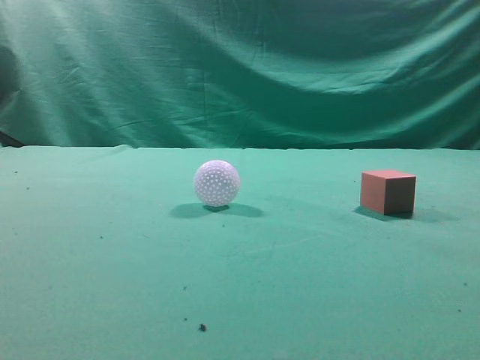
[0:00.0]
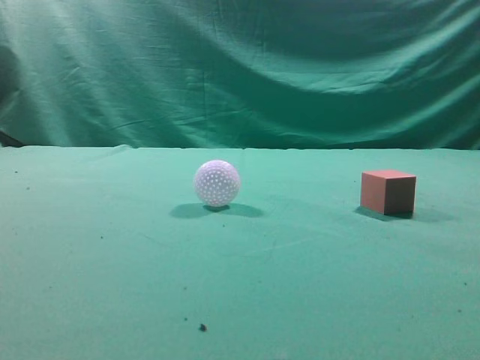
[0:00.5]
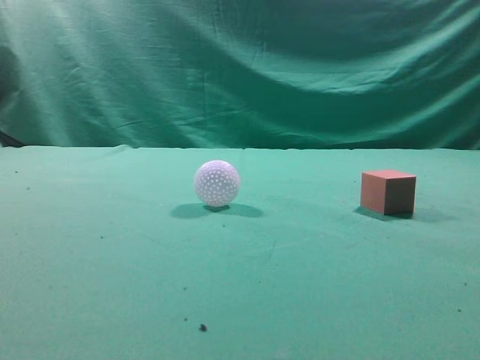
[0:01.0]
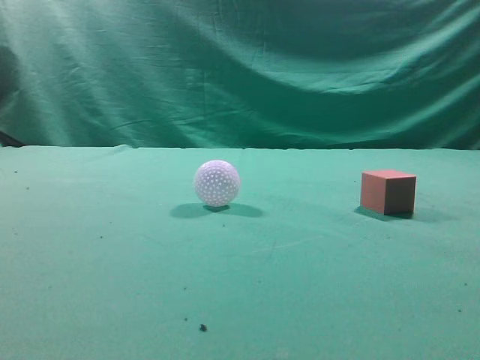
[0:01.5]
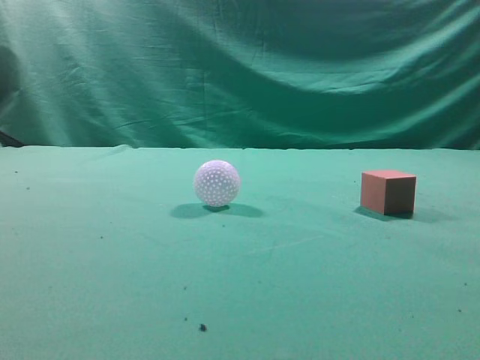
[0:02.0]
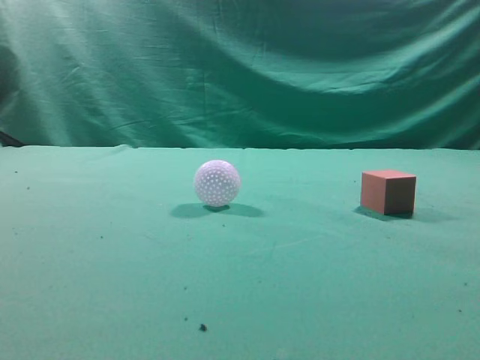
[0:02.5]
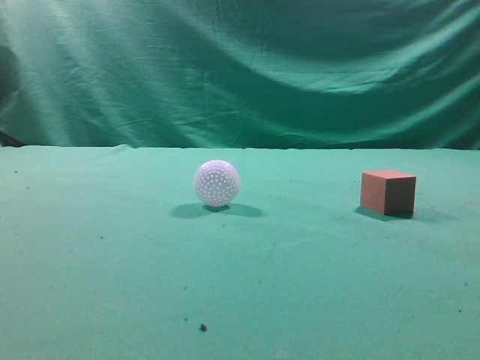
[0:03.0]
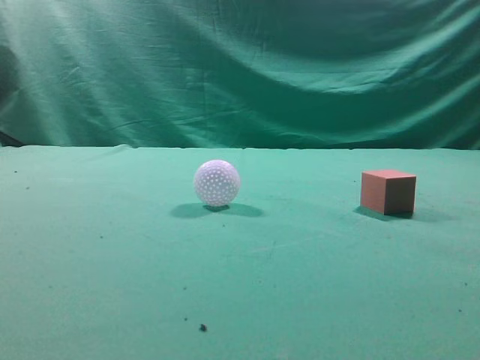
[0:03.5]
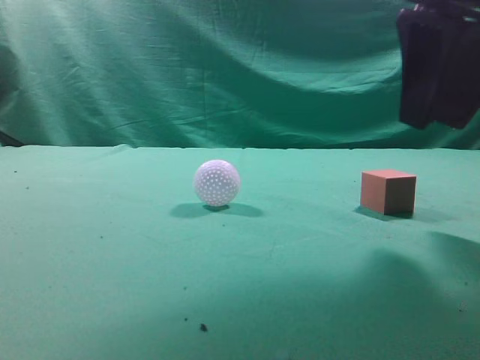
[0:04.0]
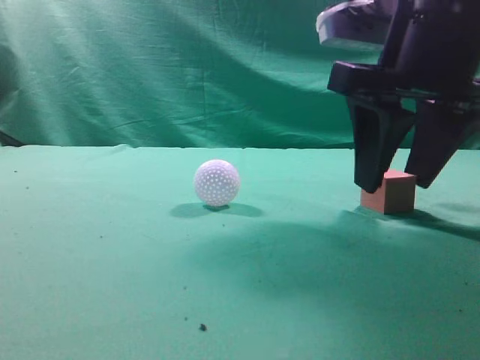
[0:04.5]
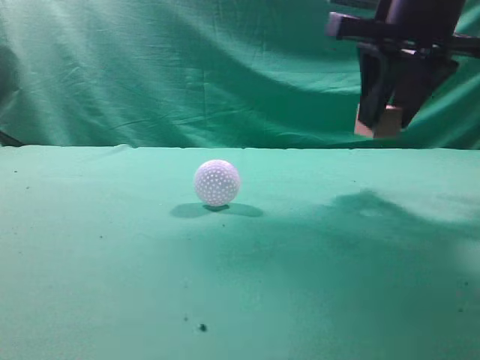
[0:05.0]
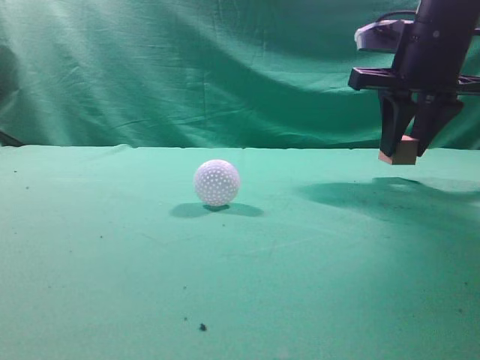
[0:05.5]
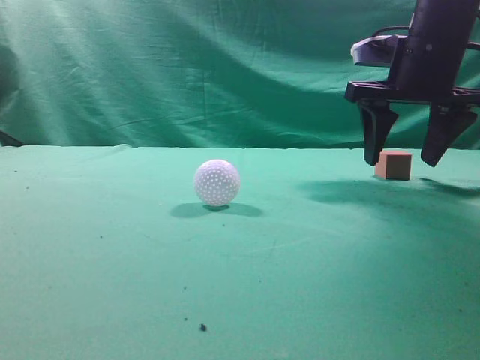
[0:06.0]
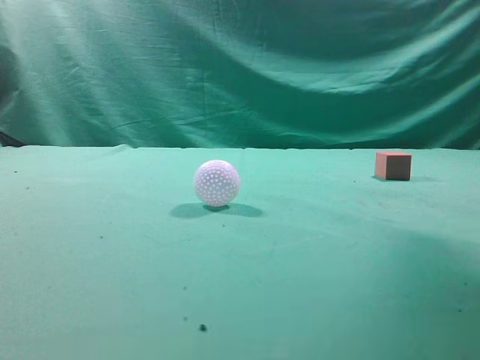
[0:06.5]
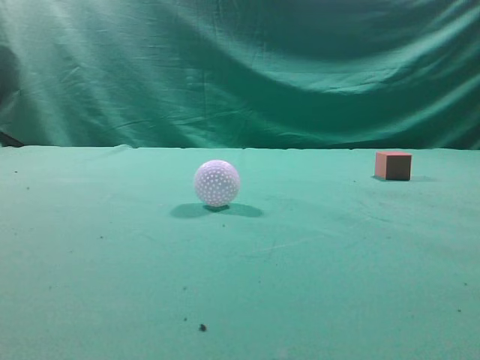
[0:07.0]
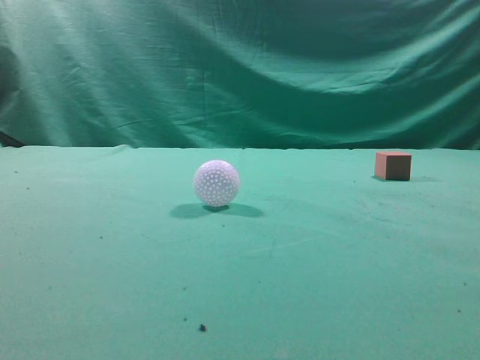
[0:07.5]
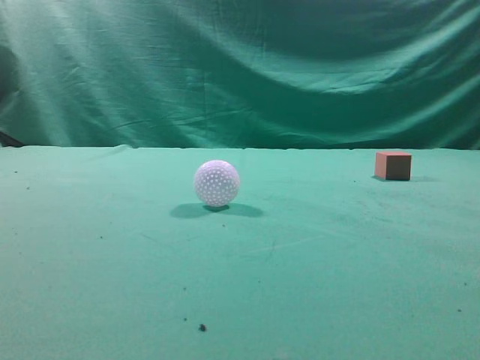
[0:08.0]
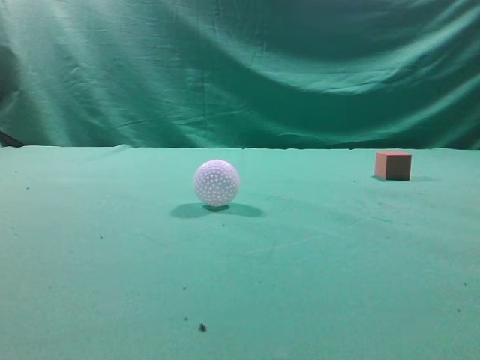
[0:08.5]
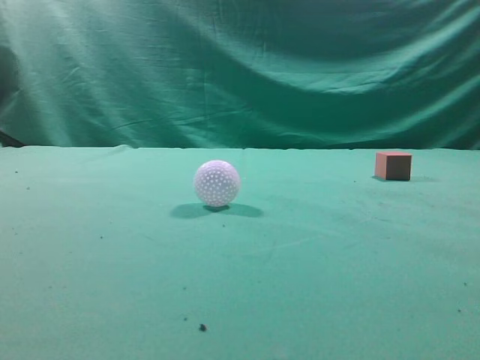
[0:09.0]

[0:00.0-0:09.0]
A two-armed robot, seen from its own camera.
Task of the whole recording: pick up the cube block and place it in another position on the table.
Step, 0:00.0 to 0:04.5: Pick up the small cube.
Step, 0:05.0 to 0:05.5: Place the small cube on the ahead of the table.
0:02.0 to 0:04.5: The right gripper shifts some 35 cm forward, to the left and downward, and opens up.
0:04.5 to 0:07.0: The right gripper goes some 25 cm upward, backward and to the right, and closes.
